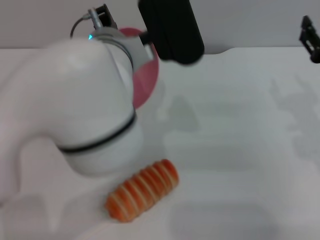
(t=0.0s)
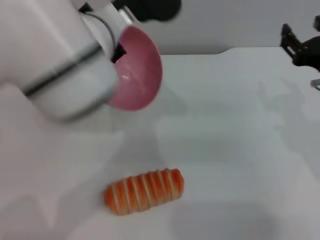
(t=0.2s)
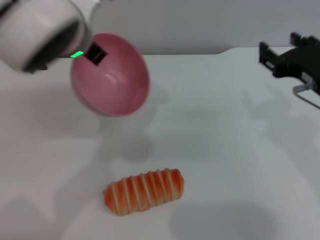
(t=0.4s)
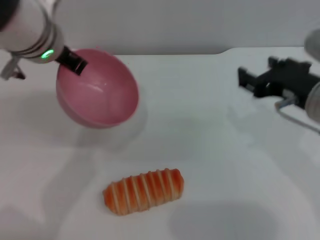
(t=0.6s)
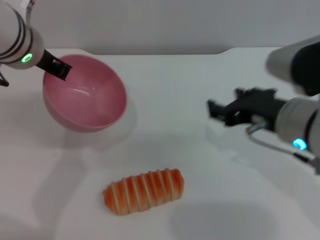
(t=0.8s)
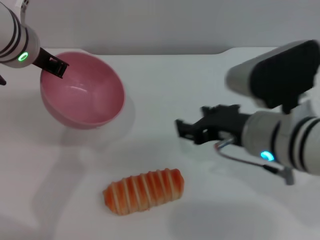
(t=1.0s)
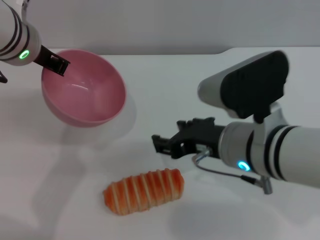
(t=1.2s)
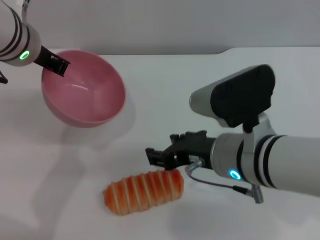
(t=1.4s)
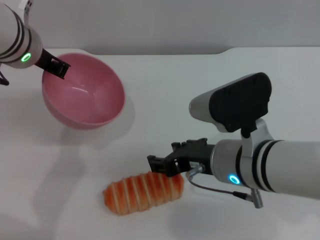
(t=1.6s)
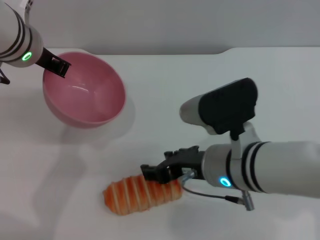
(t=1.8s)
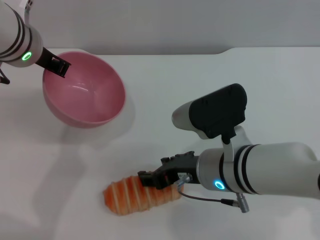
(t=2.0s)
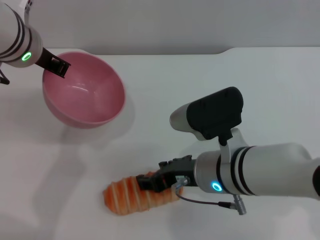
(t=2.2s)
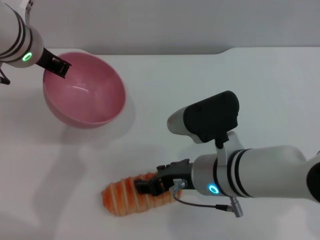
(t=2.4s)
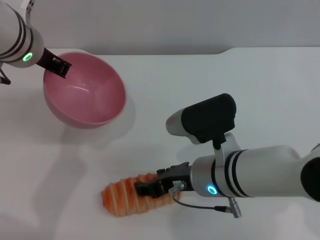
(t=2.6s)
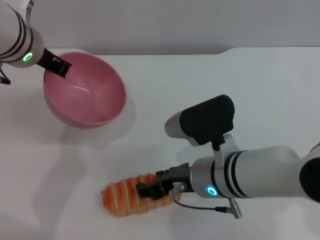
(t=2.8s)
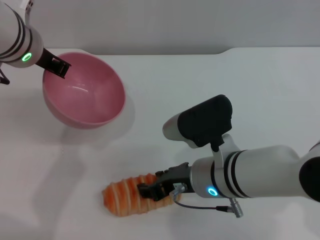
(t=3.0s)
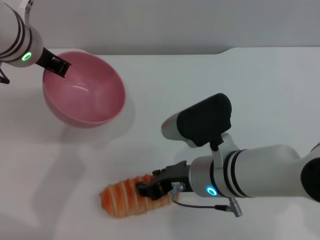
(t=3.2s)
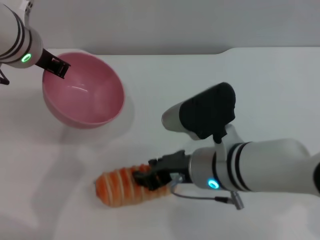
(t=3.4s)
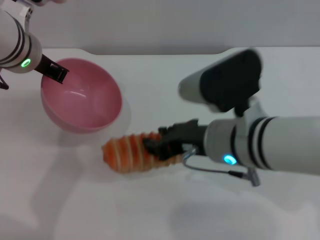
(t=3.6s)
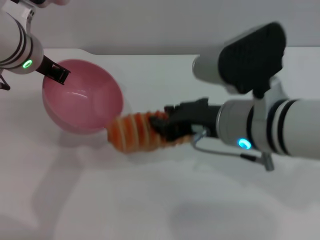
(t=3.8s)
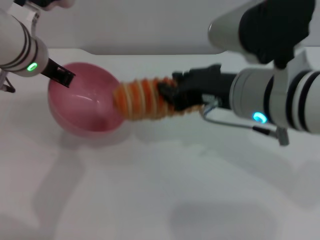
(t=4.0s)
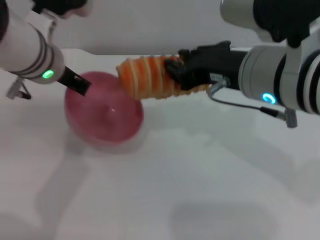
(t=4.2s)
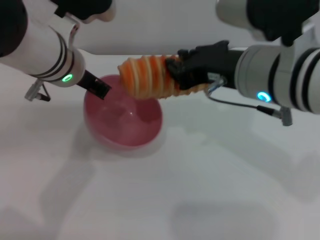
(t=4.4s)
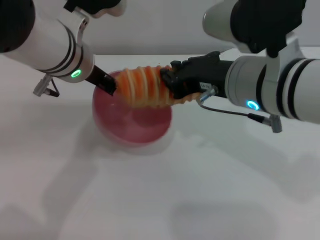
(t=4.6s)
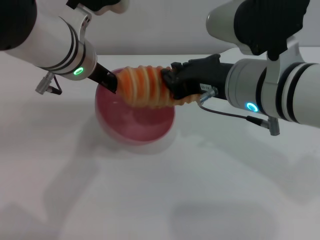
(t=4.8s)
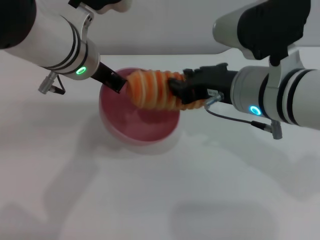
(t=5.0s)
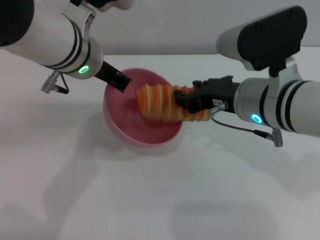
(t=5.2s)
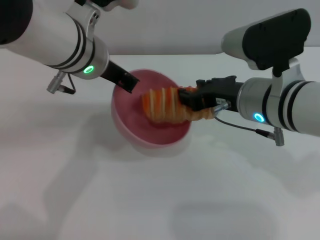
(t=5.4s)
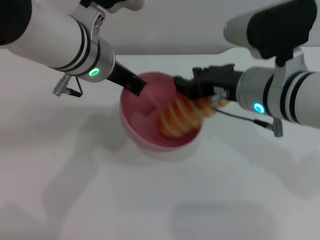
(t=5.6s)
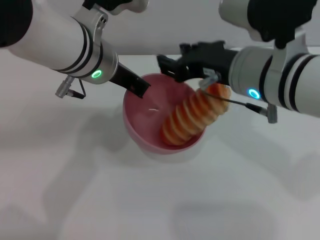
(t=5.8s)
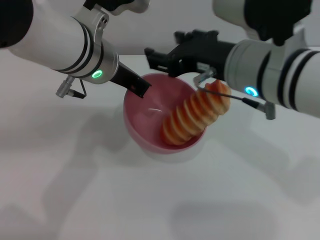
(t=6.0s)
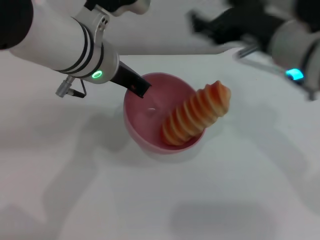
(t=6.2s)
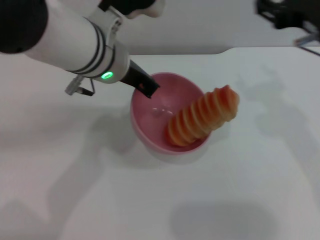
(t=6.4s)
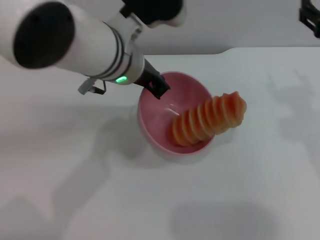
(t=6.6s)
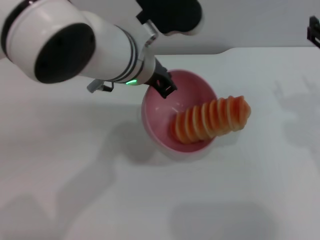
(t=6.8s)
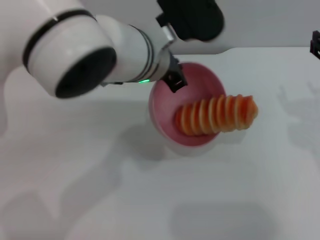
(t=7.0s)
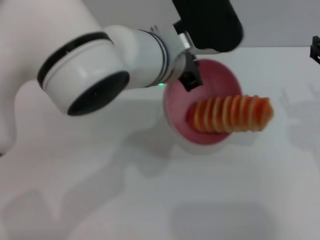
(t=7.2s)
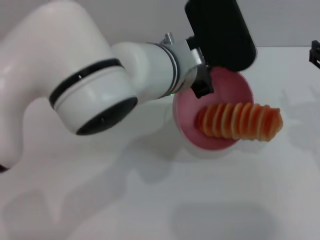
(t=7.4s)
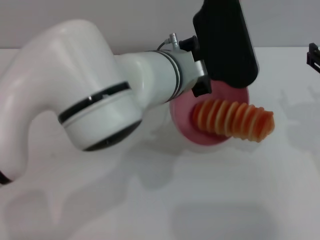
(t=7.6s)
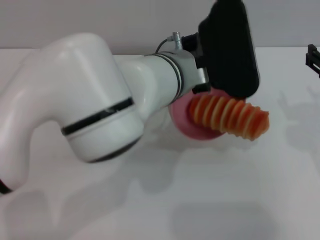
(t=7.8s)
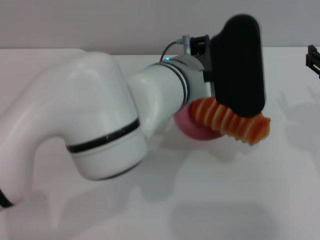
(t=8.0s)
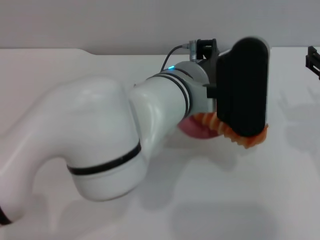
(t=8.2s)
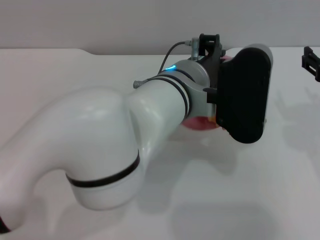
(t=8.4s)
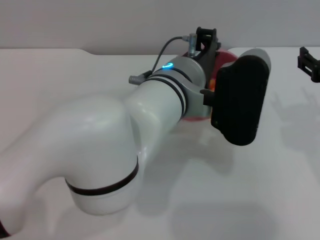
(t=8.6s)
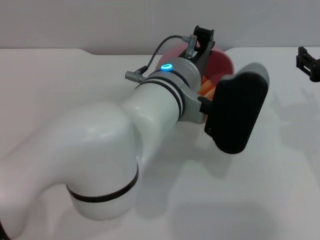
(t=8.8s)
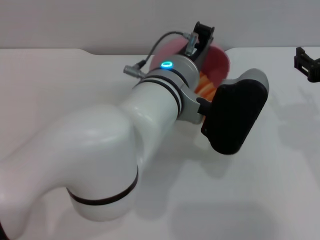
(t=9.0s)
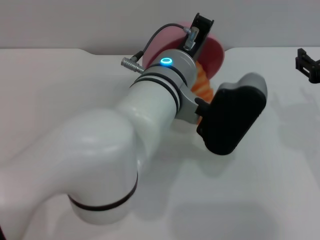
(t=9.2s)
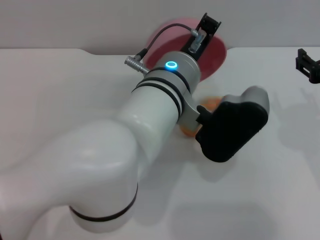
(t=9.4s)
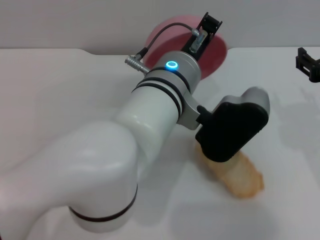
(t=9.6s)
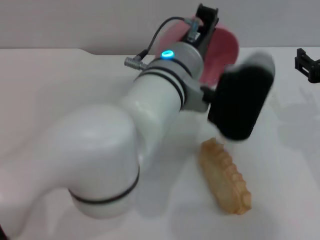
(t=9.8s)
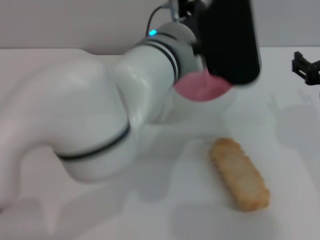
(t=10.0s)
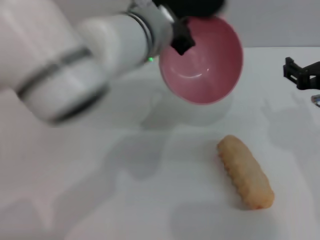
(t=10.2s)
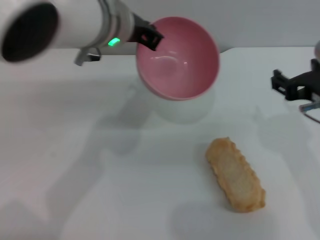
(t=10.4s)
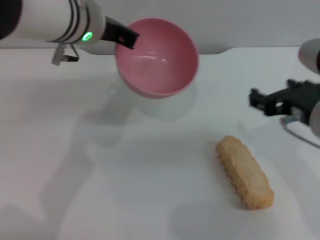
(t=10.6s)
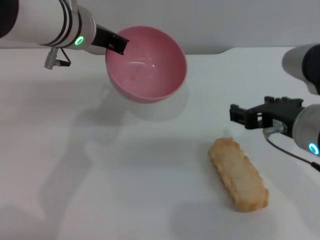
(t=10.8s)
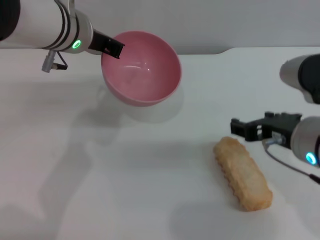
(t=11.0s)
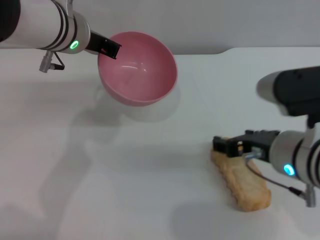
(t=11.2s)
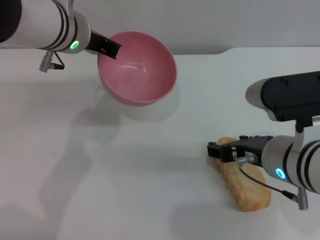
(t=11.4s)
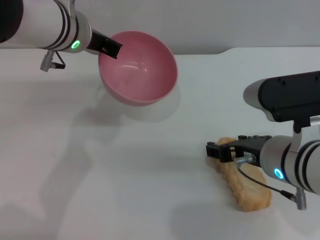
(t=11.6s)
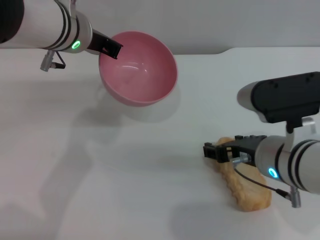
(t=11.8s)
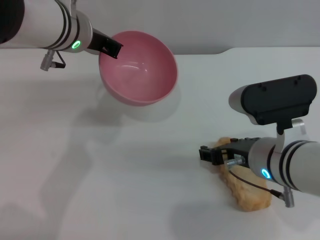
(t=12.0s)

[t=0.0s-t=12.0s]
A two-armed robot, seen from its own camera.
Task of the whole recording: put the bread into the pink bowl and pour it out repeatedly.
Step, t=0.2s to t=3.6s: Pick up the bread with the right gripper.
Step, t=3.8s to t=6.0s: Place the bread into the bowl.
Step, t=6.2s to t=9.4s: Pour the bread out of the bowl.
t=0.0s to t=1.6s: Both grippers move to the left, approximately 15 cm.
t=1.6s to t=3.0s: The grippers move only a little.
t=3.0s to t=4.4s: The right gripper goes roughly 15 cm upward, and closes.
t=4.4s to t=6.0s: The right gripper opens.
t=6.0s to t=7.6s: The left gripper heads to the right, covering some 10 cm. The right gripper travels to the right by some 15 cm.
t=9.0s to t=10.4s: The left gripper is displaced to the left, forward and upward by approximately 10 cm.
t=10.4s to t=12.0s: The right gripper is displaced downward and to the left by some 10 cm. The left gripper ends up some 5 cm from where it was.

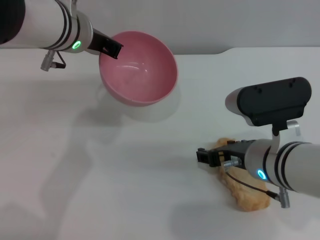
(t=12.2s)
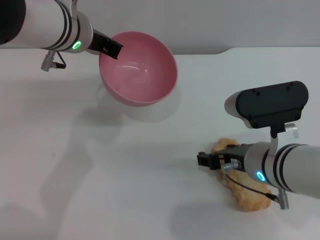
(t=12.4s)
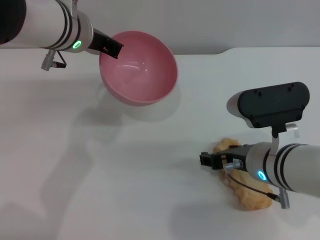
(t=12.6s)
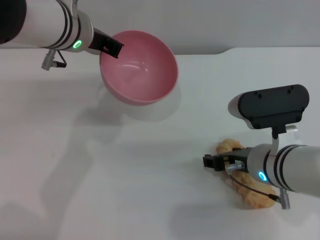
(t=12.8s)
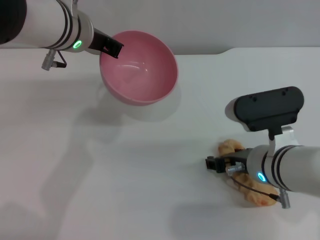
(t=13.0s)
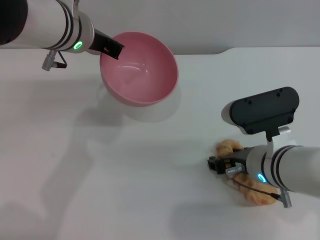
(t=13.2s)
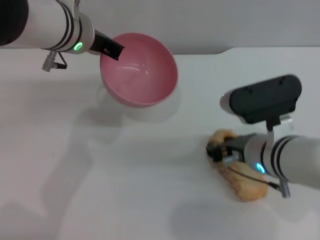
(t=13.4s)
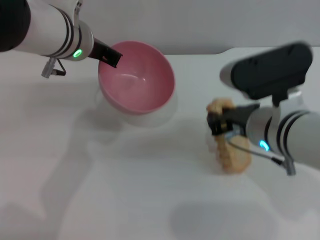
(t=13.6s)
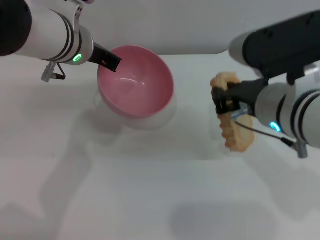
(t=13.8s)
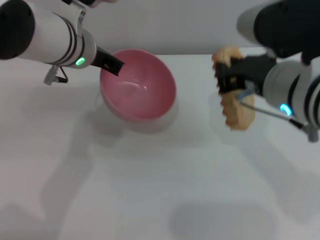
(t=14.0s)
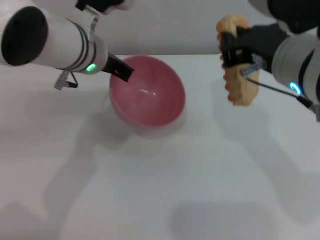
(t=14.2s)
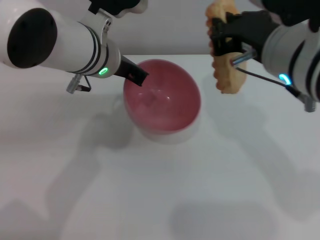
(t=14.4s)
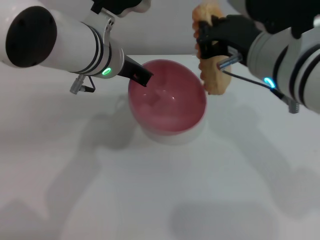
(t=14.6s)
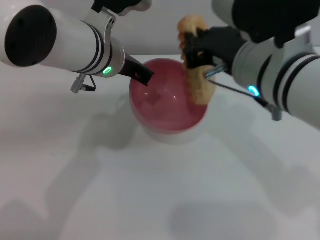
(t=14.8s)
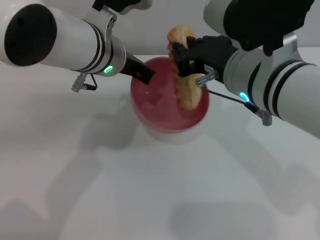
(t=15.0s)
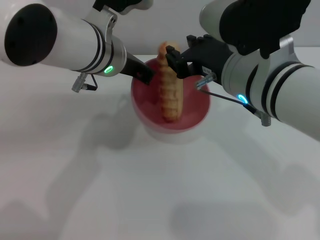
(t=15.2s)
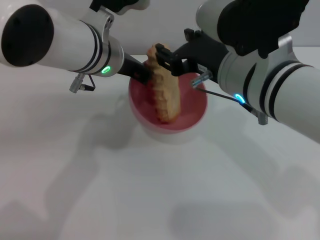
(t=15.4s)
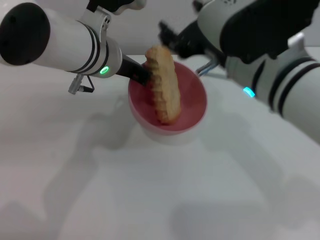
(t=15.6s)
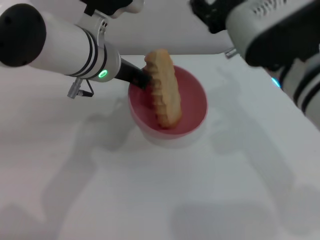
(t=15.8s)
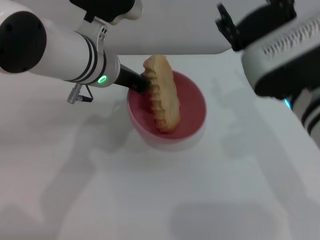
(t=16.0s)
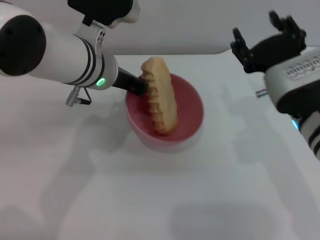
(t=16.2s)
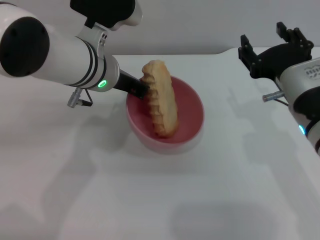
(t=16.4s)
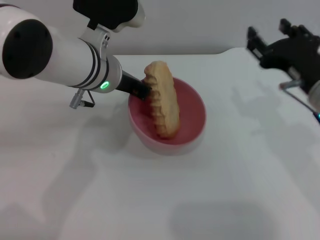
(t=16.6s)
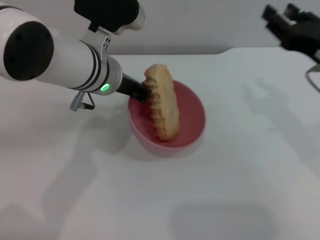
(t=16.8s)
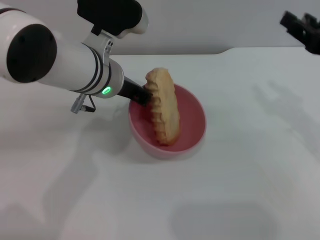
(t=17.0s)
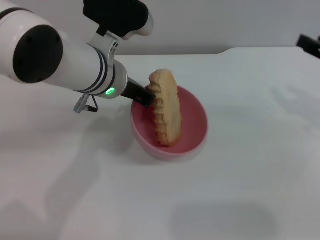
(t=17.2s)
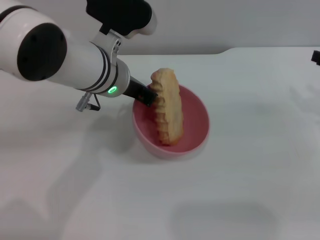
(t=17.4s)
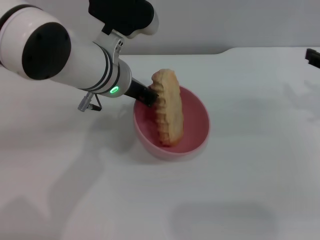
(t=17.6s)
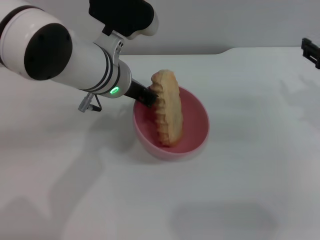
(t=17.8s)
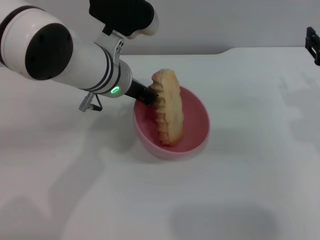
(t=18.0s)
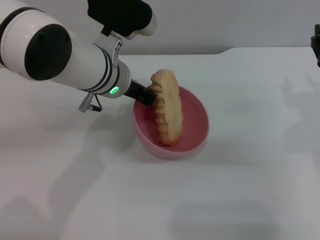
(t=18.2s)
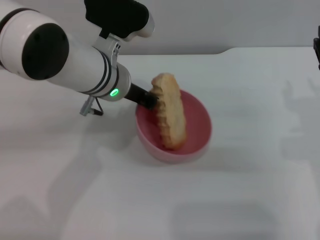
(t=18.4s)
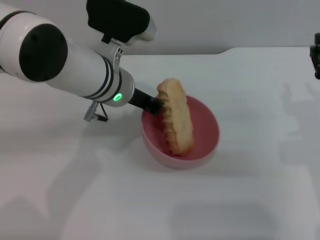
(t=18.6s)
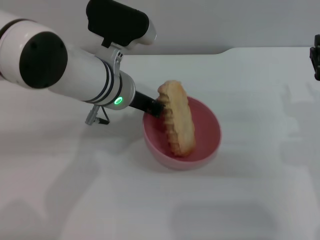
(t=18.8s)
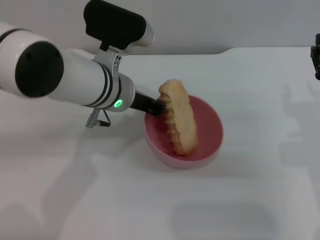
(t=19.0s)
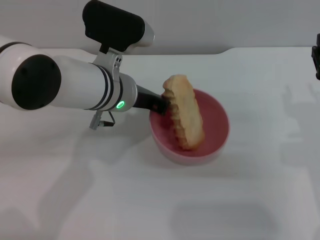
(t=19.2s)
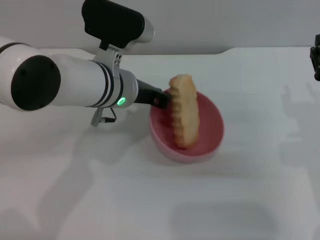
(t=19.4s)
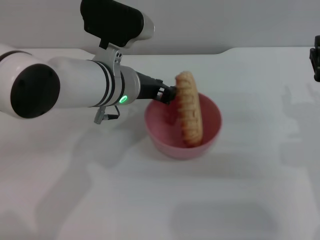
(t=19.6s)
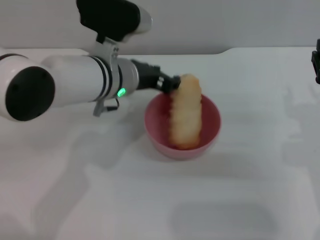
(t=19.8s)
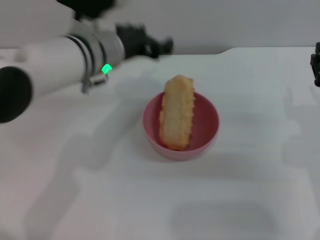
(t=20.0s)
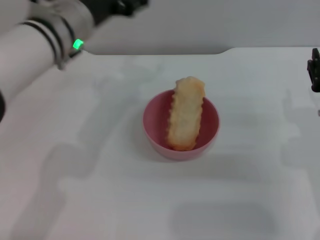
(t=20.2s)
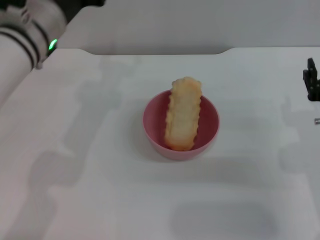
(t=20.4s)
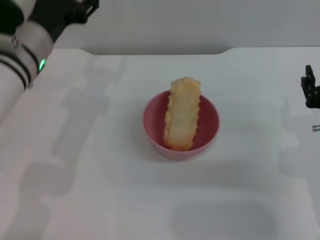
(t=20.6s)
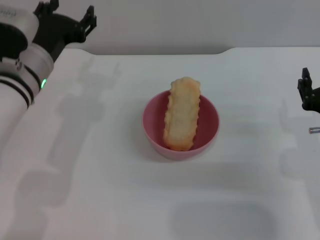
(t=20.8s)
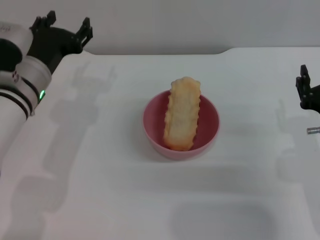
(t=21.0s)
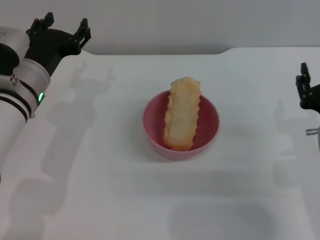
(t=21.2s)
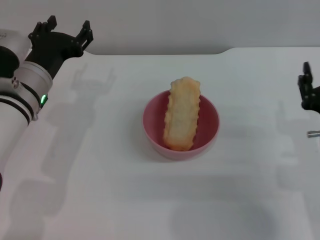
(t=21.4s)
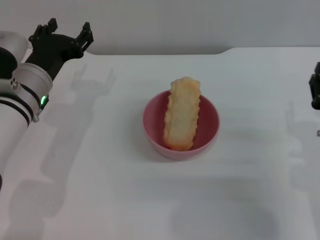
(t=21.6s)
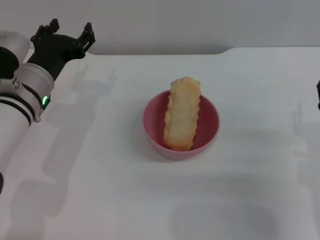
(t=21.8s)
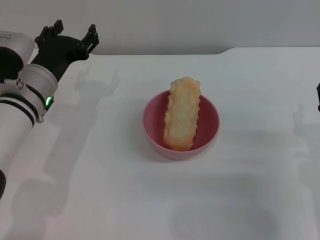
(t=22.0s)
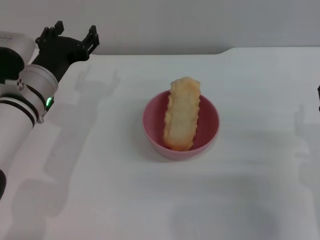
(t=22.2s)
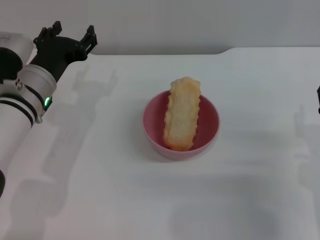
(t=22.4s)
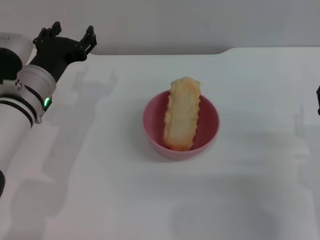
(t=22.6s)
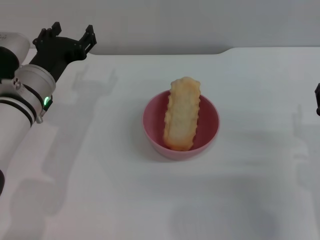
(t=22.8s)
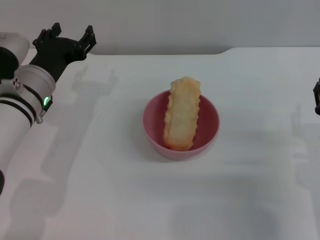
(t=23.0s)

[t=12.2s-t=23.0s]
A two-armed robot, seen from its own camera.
Task of the whole recording: put the bread into the pink bowl and pour it out repeatedly.
Step, t=14.0s to t=15.6s: Place the bread into the bowl.
Step, t=15.8s to t=19.8s: Place the bowl on the table.
t=12.2s to t=13.8s: The right gripper travels upward by roughly 5 cm, and closes.
t=15.2s to t=16.8s: The right gripper heads to the right, covering approximately 15 cm, and opens up.
t=16.8s to t=18.4s: The right gripper heads downward, covering roughly 5 cm, and reaches roughly 10 cm to the right, then returns.
t=18.4s to t=20.0s: The left gripper opens up.
t=20.0s to t=21.4s: The left gripper is displaced to the left and downward by some 10 cm.
t=21.4s to t=23.0s: The grippers make only small movements.
